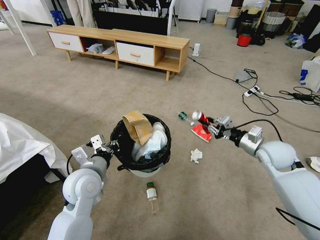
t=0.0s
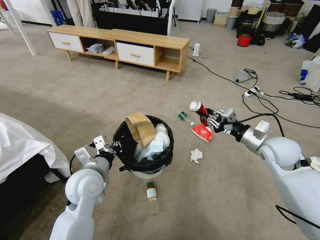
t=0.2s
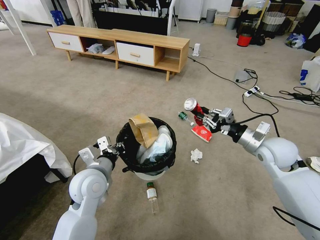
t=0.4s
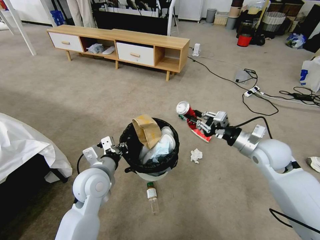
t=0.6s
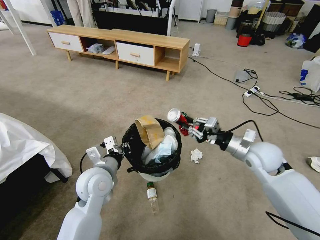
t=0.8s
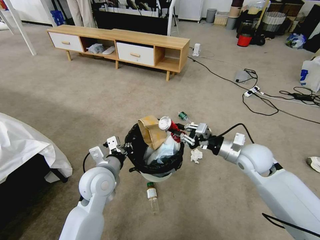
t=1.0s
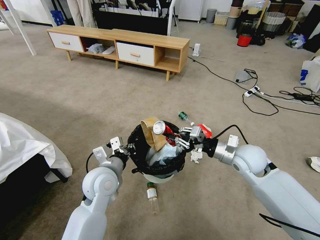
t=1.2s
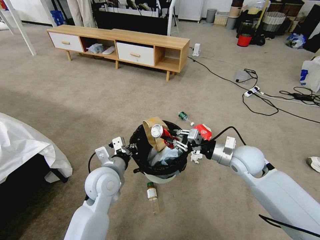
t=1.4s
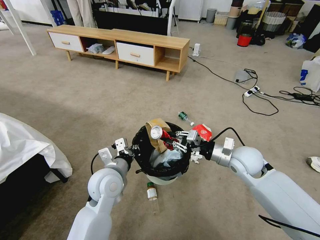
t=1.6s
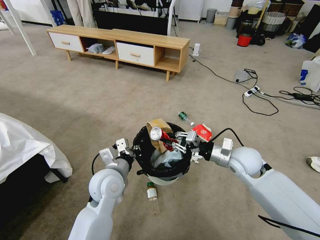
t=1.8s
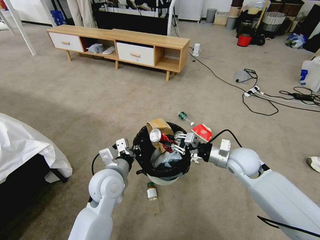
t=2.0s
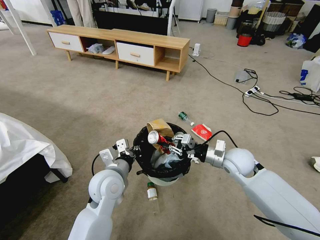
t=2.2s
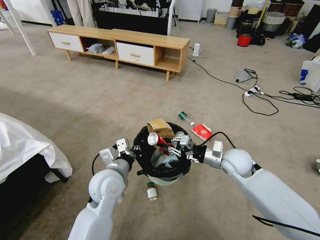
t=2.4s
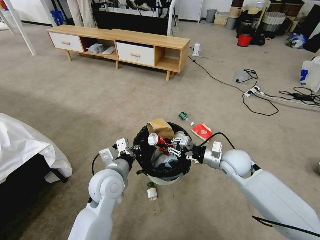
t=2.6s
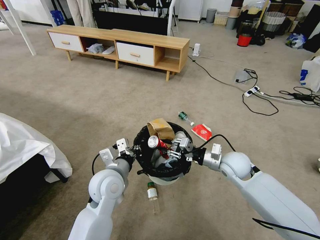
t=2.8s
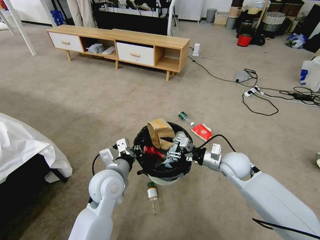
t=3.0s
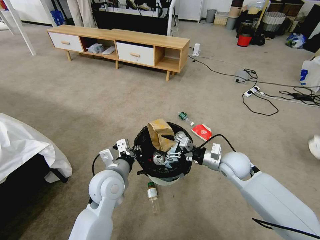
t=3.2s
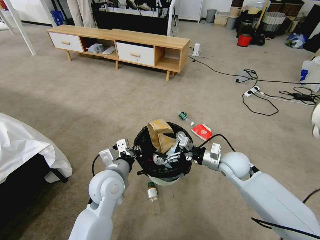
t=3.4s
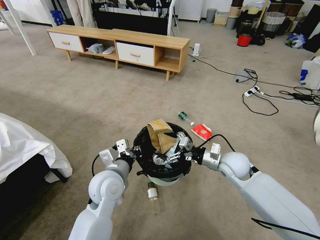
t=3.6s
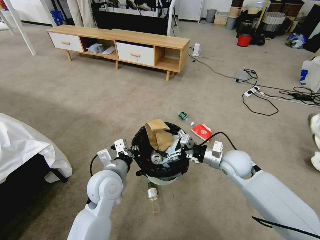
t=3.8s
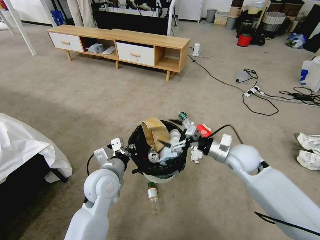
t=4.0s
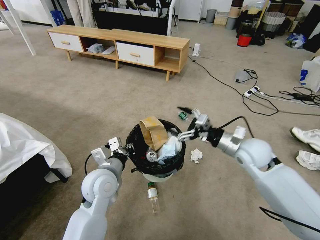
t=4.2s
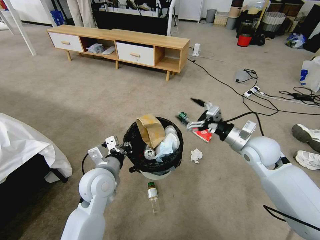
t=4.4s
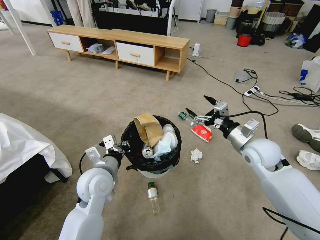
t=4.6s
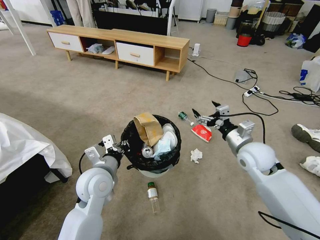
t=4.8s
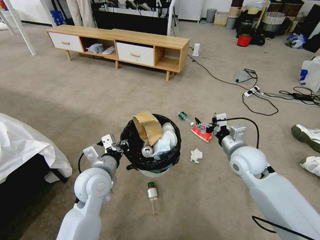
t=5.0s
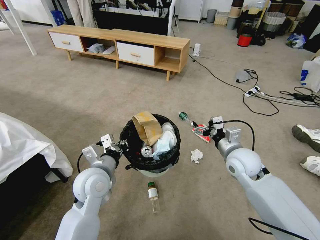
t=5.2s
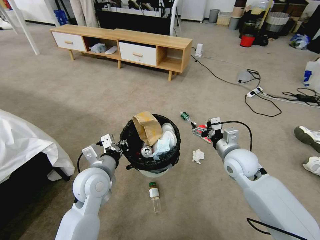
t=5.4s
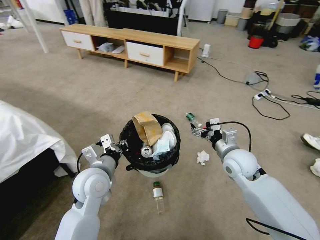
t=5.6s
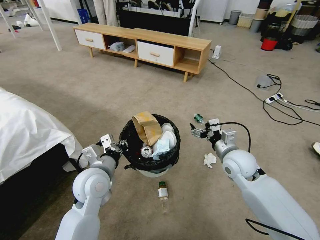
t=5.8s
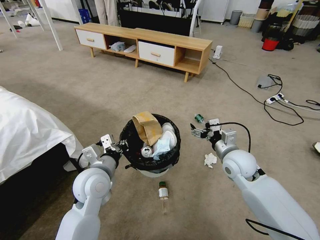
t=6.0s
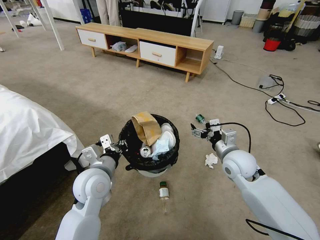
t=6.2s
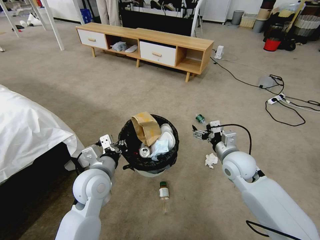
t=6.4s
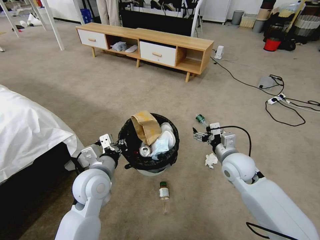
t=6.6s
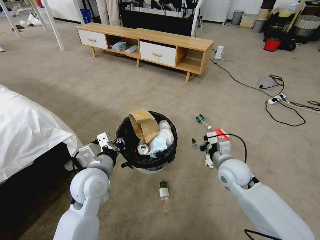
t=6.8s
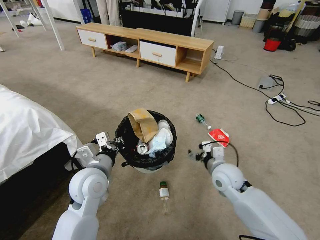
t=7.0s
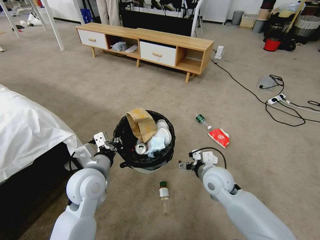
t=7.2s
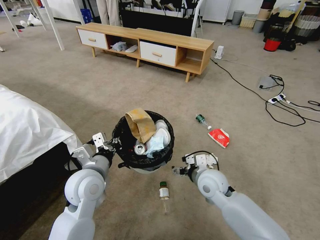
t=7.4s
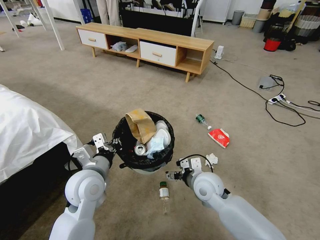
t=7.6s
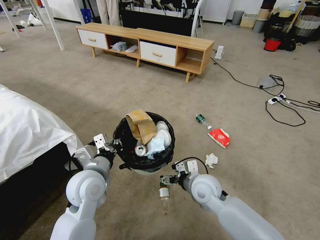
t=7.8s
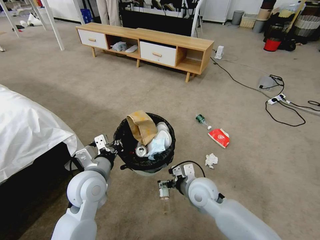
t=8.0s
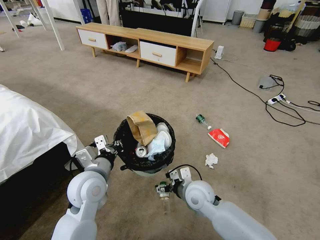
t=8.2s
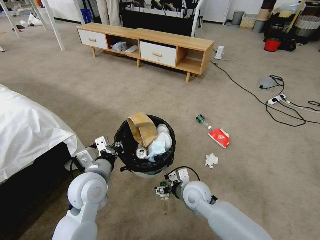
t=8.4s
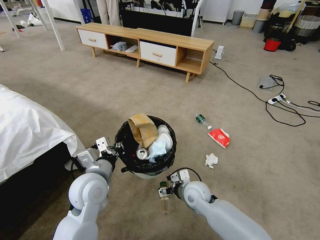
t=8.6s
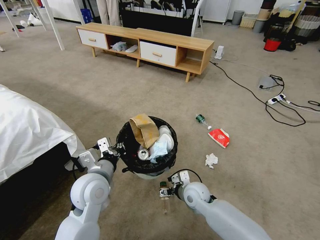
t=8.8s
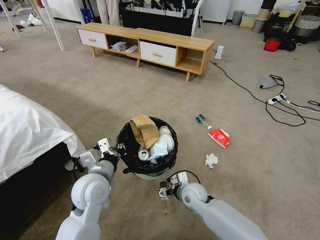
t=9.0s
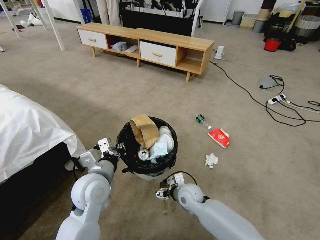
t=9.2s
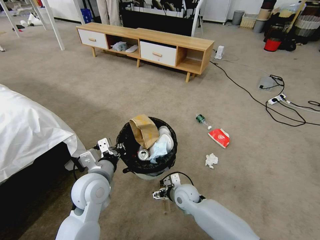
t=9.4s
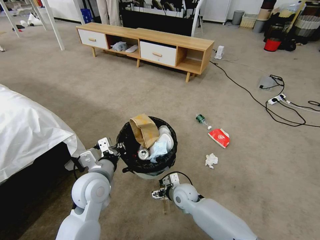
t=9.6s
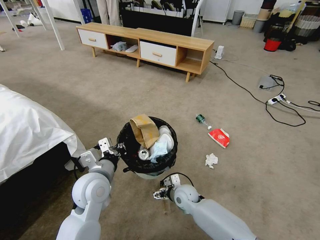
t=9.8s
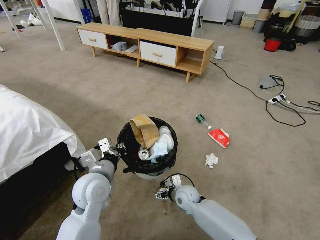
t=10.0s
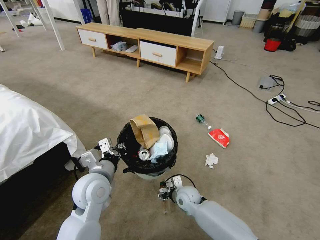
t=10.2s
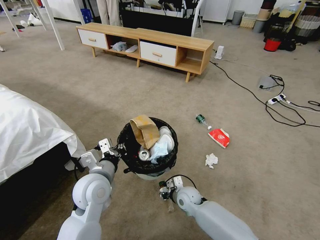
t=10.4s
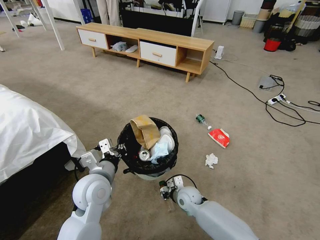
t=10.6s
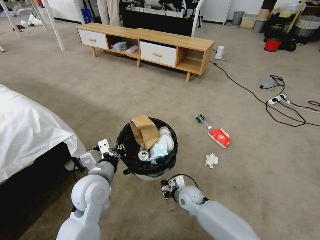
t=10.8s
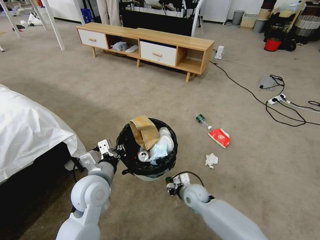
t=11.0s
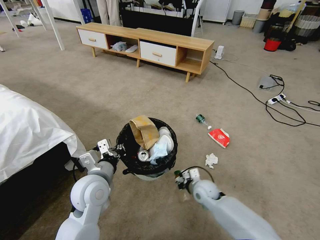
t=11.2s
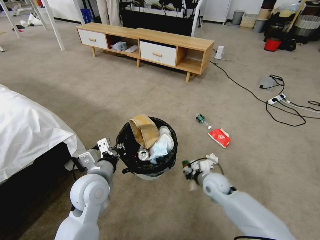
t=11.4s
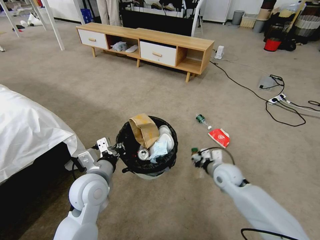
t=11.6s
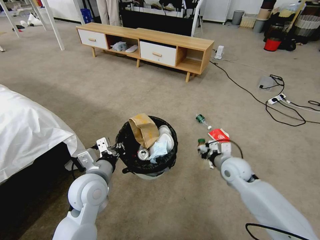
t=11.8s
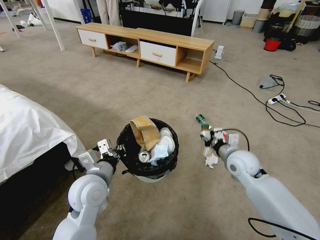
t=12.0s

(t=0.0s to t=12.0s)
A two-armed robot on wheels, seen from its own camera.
Task of the whole recording: Pick up the trash bin and place the garbage on the floor into it.
t=0.0s - t=1.6s: The left gripper moves to the right, roughly 5 cm, while the right gripper shifts roughly 10 cm to the left.
t=1.6s - t=3.0s: The grippers stay close to where they were, moving slightly.
t=3.0s - t=4.4s: The right gripper is displaced upward and to the right by some 10 cm, and opens up.
t=4.4s - t=6.0s: The right gripper moves to the left and downward, approximately 5 cm.
t=6.0s - t=7.6s: The right gripper is displaced to the left and downward by approximately 10 cm.
t=7.6s - t=9.0s: The right gripper shifts about 10 cm downward.
t=9.0s - t=10.4s: The right gripper closes.
t=10.4s - t=12.0s: The right gripper heads upward and to the right, covering approximately 25 cm.

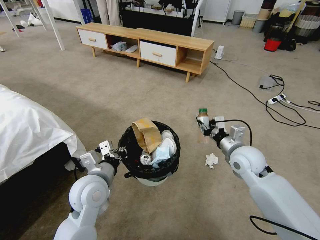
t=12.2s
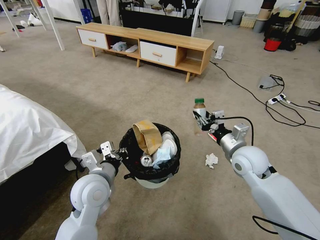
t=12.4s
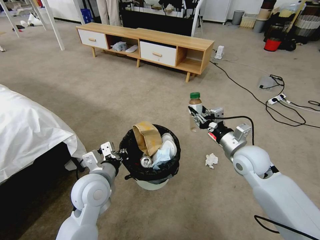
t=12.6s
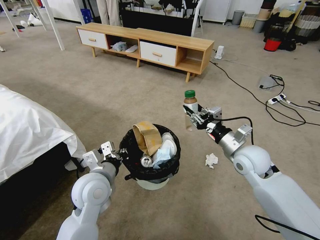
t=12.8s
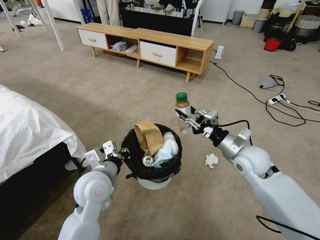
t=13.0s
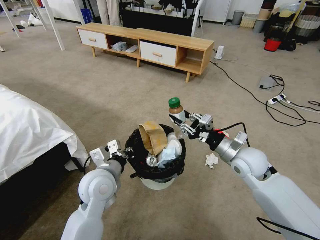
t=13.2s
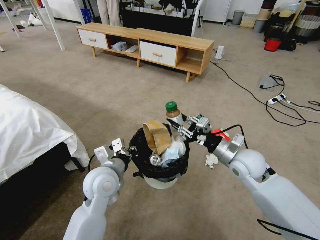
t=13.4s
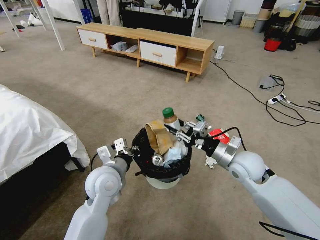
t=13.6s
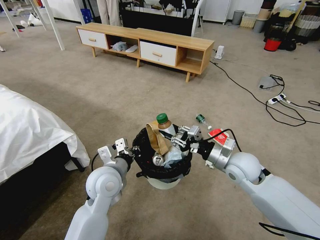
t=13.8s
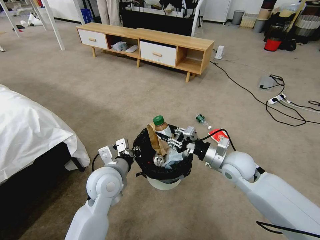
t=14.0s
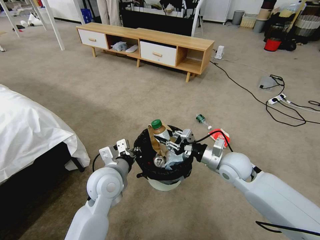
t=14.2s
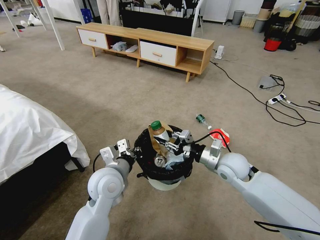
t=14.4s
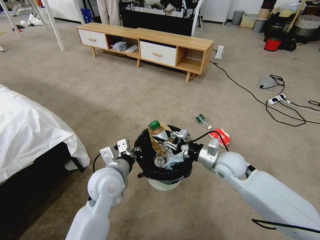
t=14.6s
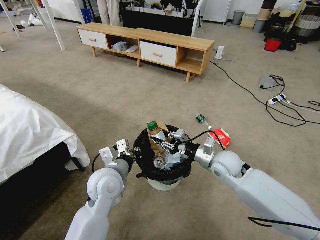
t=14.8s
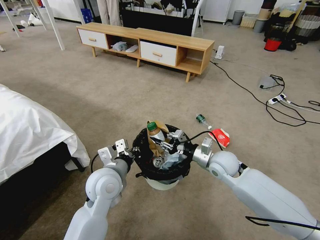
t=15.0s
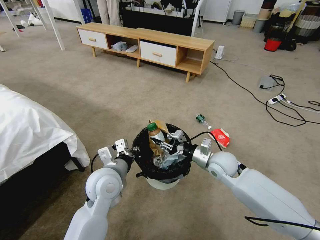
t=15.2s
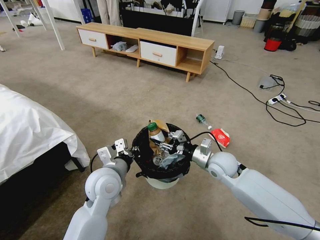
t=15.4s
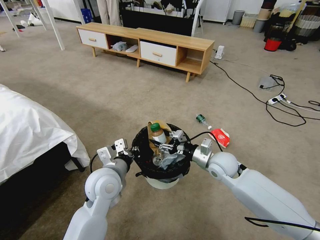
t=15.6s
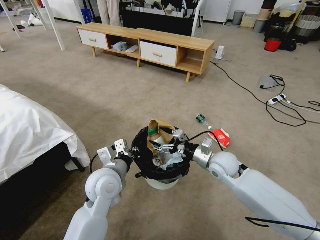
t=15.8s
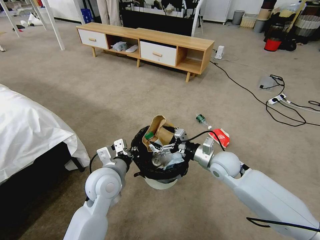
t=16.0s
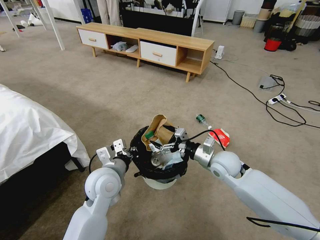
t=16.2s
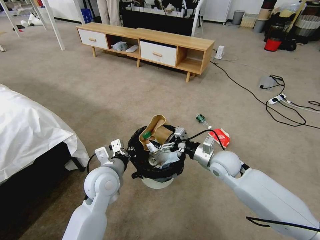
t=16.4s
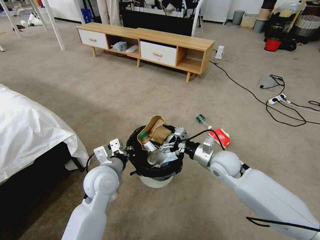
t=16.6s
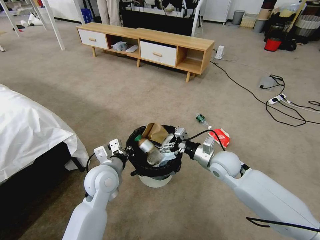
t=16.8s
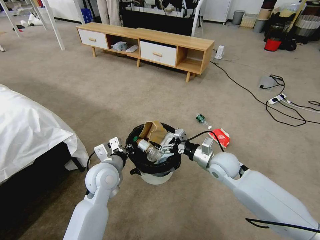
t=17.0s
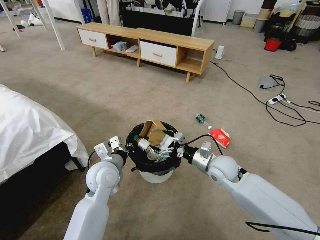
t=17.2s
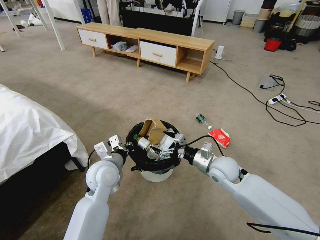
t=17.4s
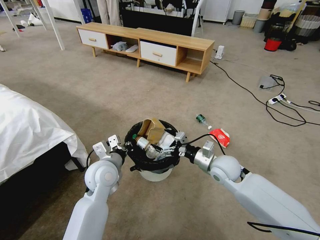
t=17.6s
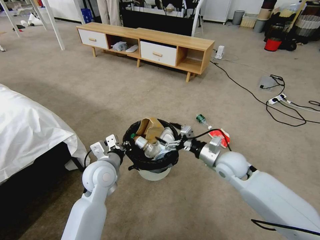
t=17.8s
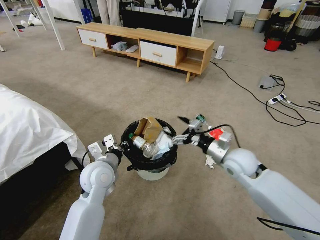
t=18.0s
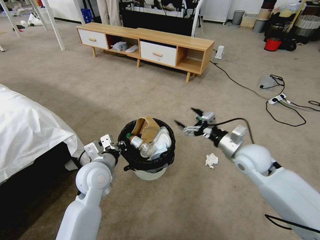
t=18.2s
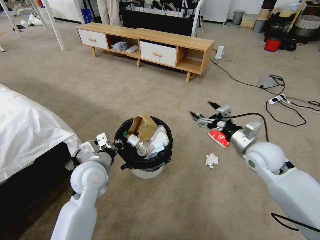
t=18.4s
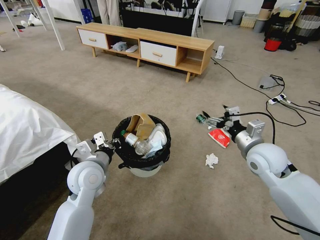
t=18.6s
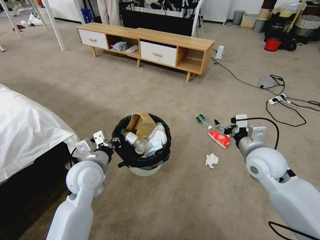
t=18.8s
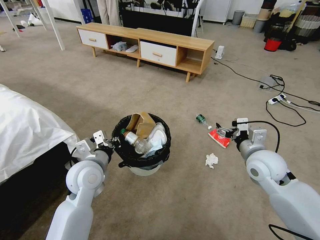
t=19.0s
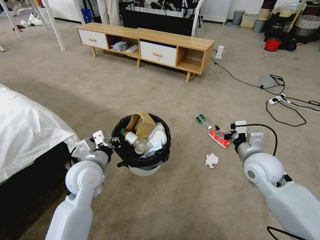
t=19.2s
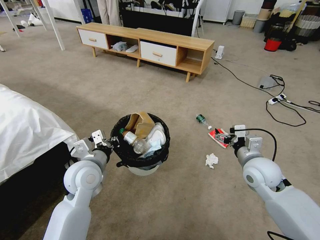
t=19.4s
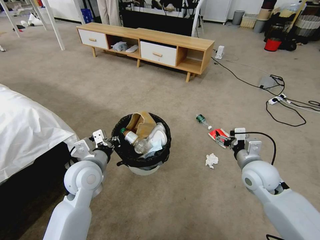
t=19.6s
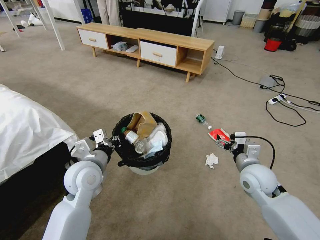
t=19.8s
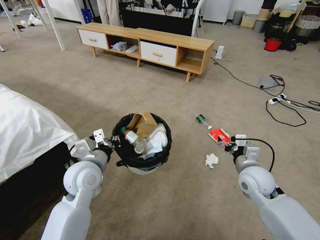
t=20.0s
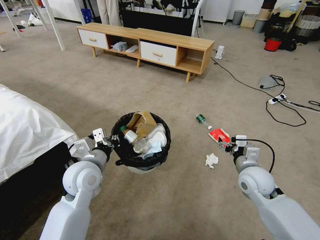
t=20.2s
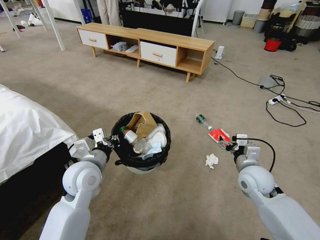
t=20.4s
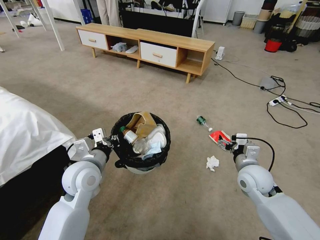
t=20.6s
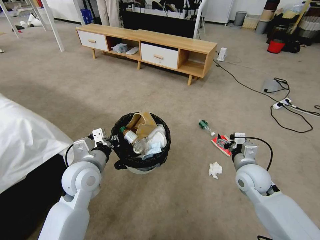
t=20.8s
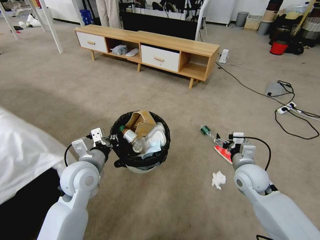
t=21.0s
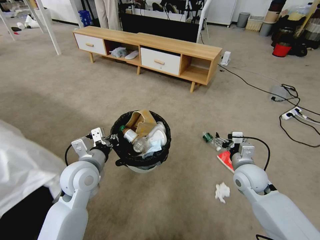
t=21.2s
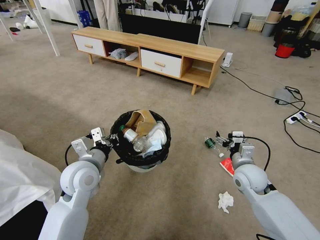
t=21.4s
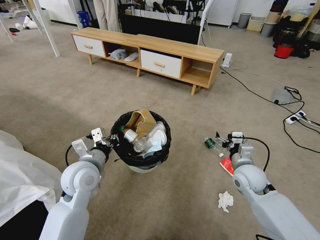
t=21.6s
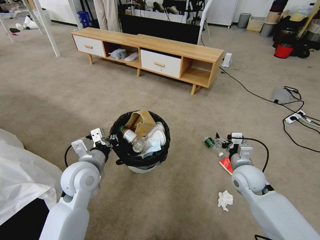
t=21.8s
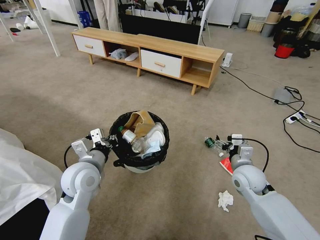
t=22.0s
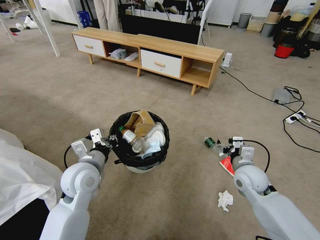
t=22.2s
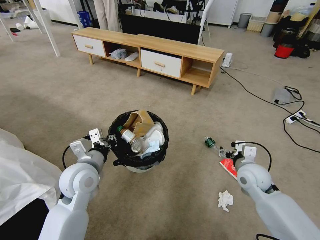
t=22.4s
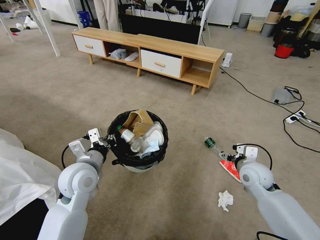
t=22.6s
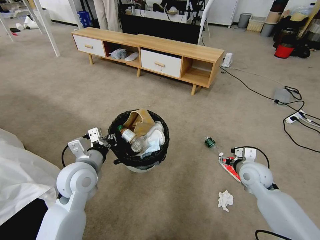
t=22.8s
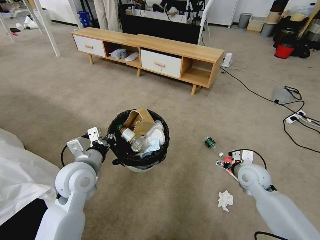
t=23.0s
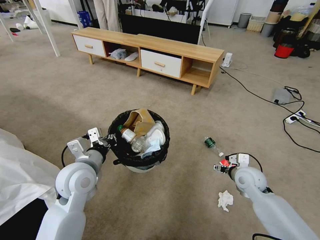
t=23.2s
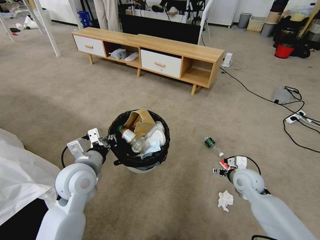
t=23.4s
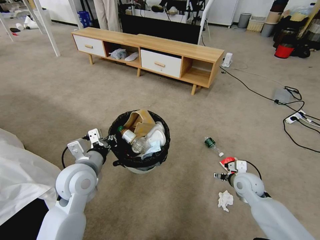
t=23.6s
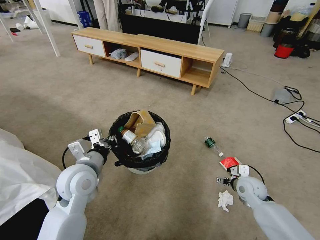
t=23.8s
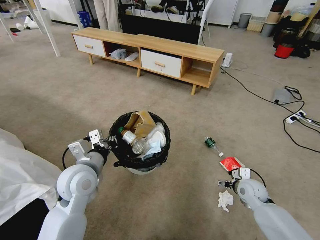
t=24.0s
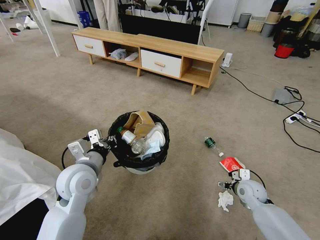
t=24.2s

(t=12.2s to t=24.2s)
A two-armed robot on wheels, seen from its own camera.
Task of the whole recording: Pick up the trash bin and place the garbage on the floor into it.
t=13.8s - t=15.2s: The right gripper shifts by about 5 cm.
t=15.2s - t=16.6s: The right gripper opens up.
t=16.6s - t=18.2s: The right gripper moves to the right and upward, some 10 cm.
t=18.2s - t=19.8s: The right gripper goes some 5 cm downward.
t=22.6s - t=24.2s: The right gripper heads downward, covering some 10 cm.
